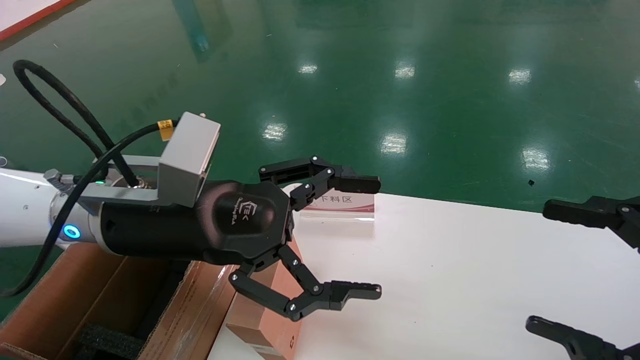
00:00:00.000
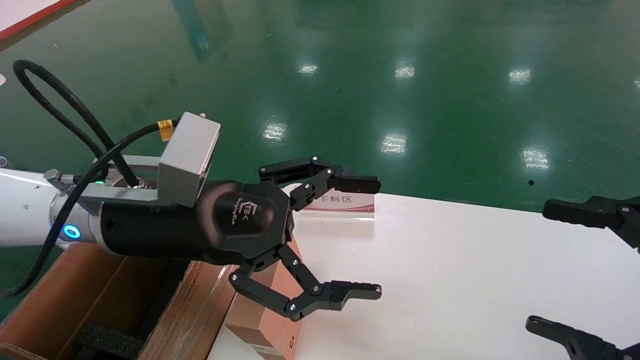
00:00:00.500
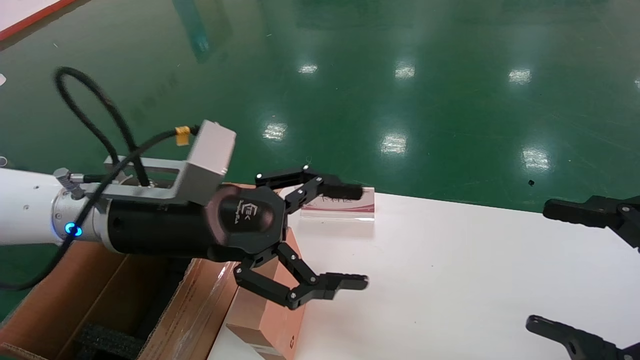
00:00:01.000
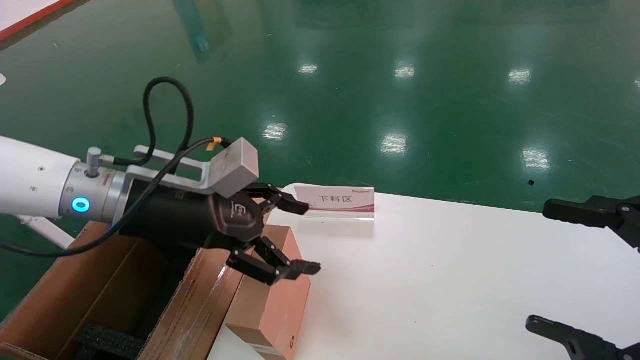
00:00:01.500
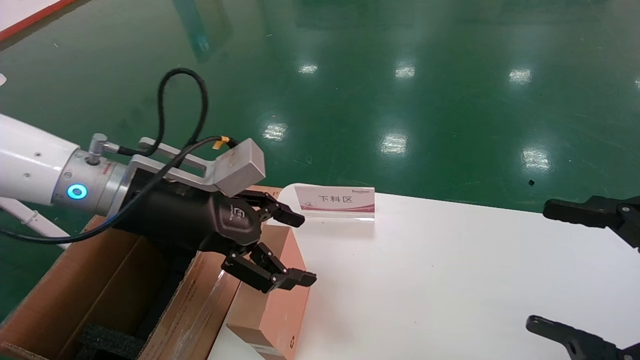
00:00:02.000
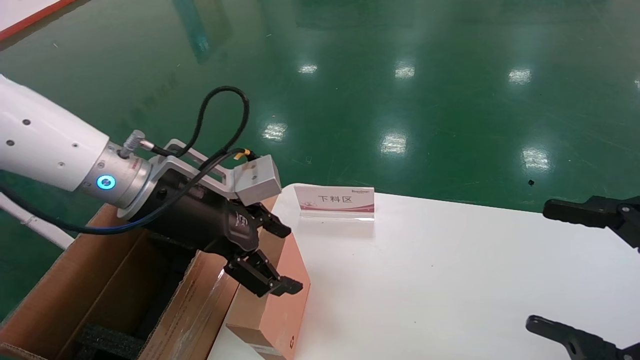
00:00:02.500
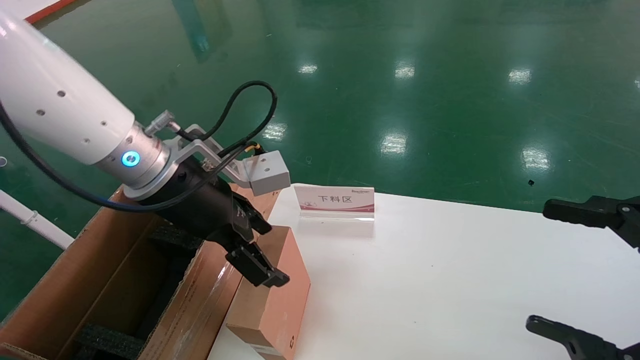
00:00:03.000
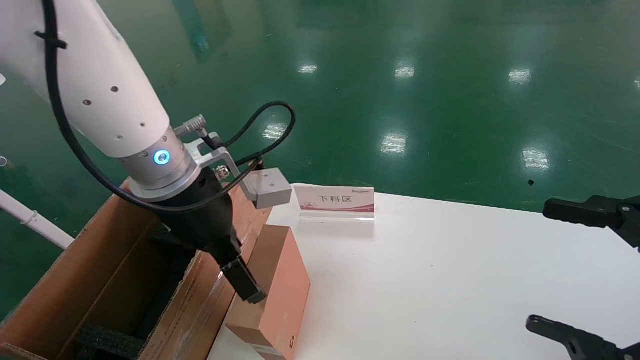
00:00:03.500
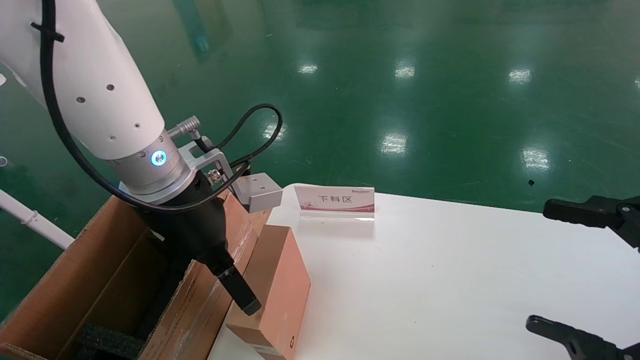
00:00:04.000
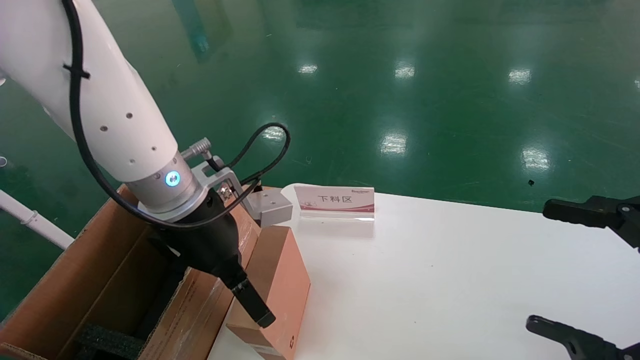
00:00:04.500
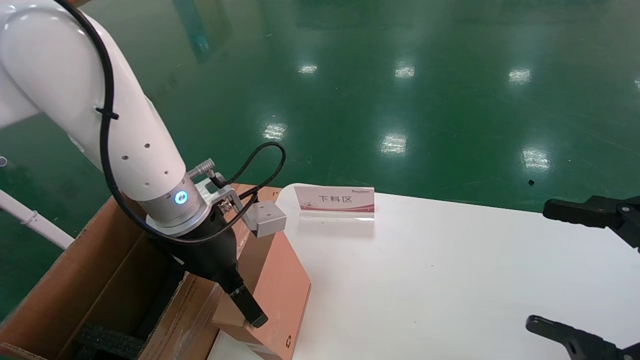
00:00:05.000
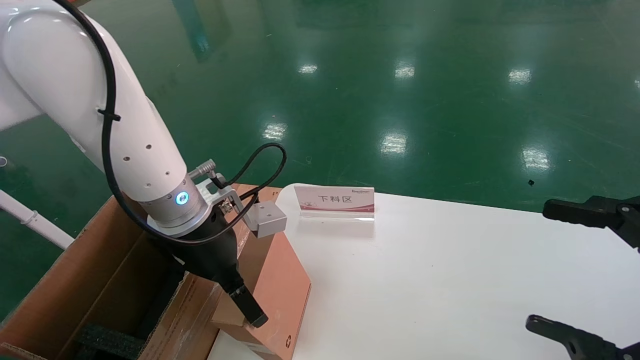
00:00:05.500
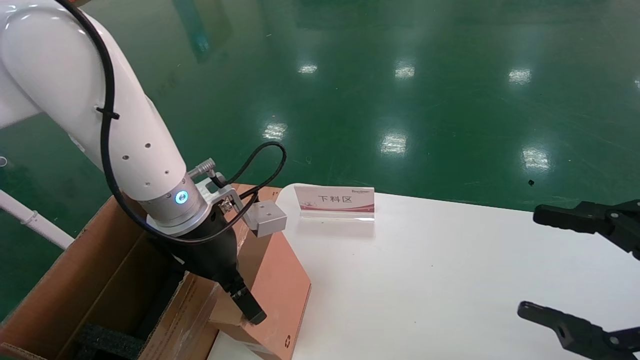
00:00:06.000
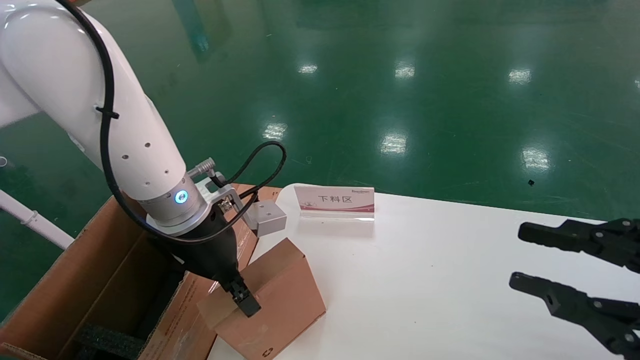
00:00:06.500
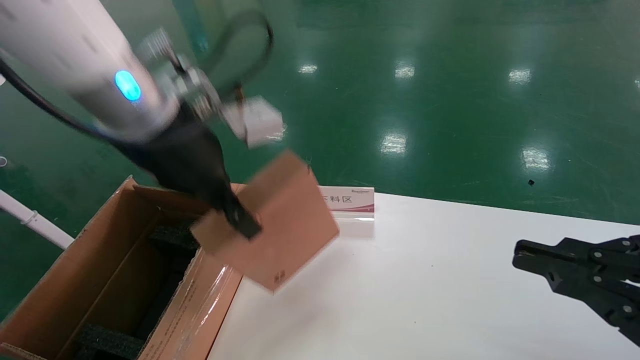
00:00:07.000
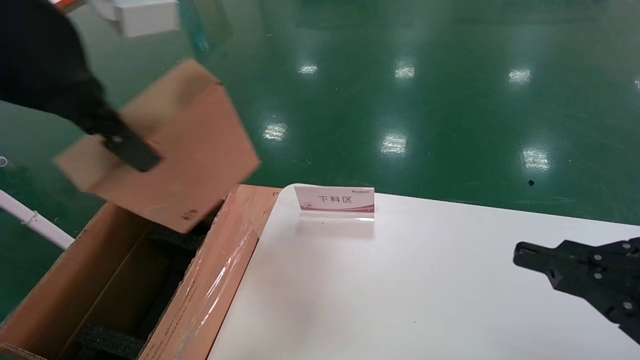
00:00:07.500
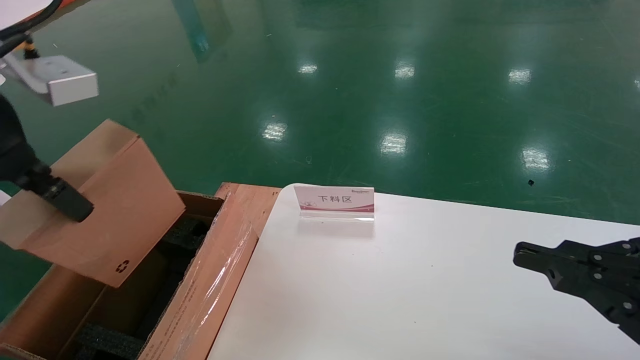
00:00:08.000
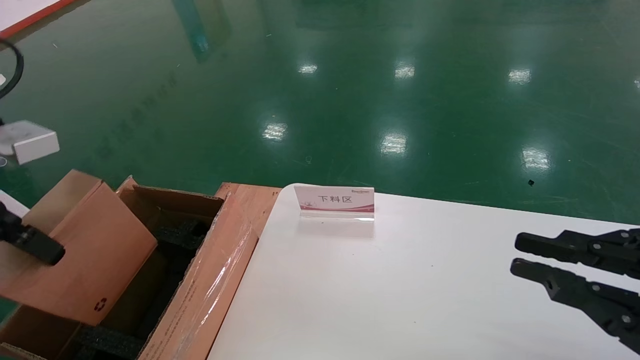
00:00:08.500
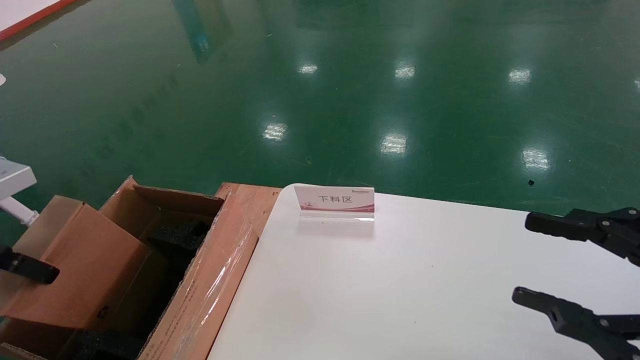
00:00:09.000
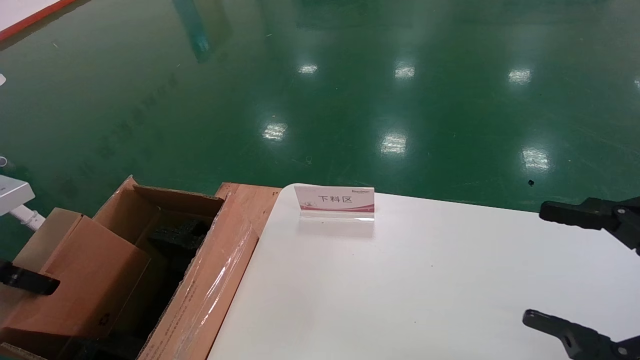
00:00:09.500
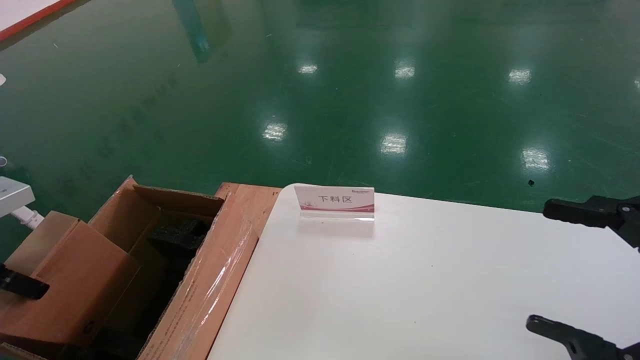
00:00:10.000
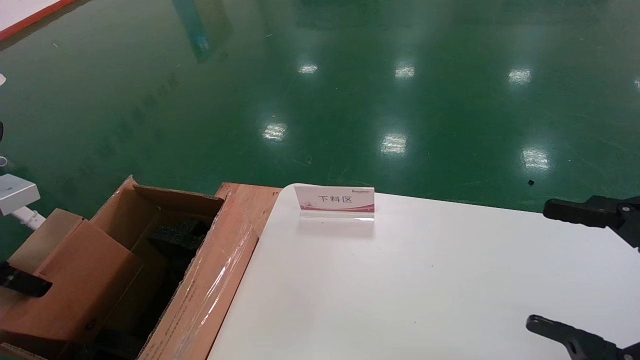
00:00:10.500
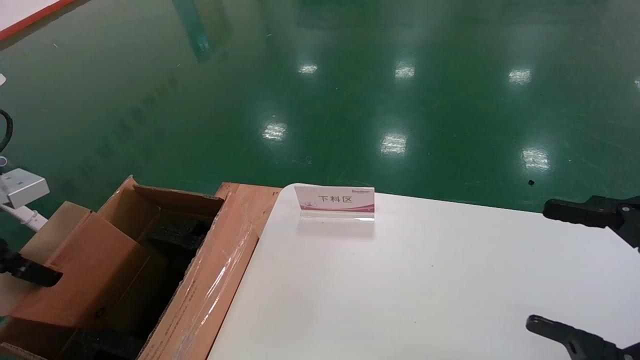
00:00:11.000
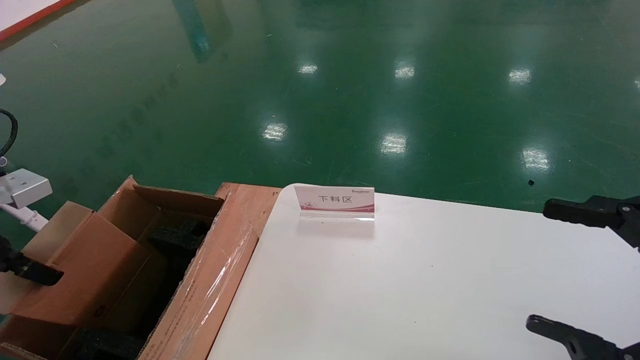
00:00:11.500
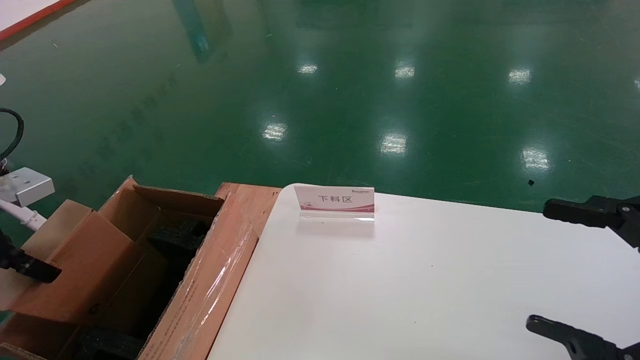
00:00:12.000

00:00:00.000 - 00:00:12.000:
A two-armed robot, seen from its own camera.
Task of the whole recording: pick up the small cardboard box and load it into the large cardboard box.
Step, 00:00:01.500 - 00:00:06.000: Pick up the mouse and power cord box.
00:00:02.000 - 00:00:04.000: The left gripper goes some 5 cm to the right.
00:00:04.000 - 00:00:06.000: The left gripper shifts by approximately 5 cm.
00:00:06.000 - 00:00:08.000: The left gripper travels upward, backward and to the left by some 25 cm, and closes, while the right gripper closes.
00:00:08.000 - 00:00:10.000: The right gripper opens. The left gripper goes approximately 20 cm to the left and downward.
00:00:10.000 - 00:00:12.000: The grippers stay close to where they were, moving slightly.

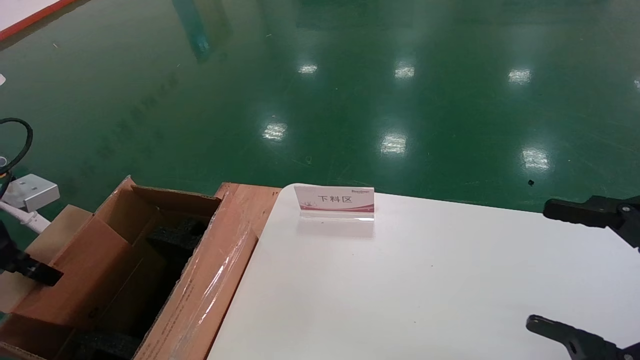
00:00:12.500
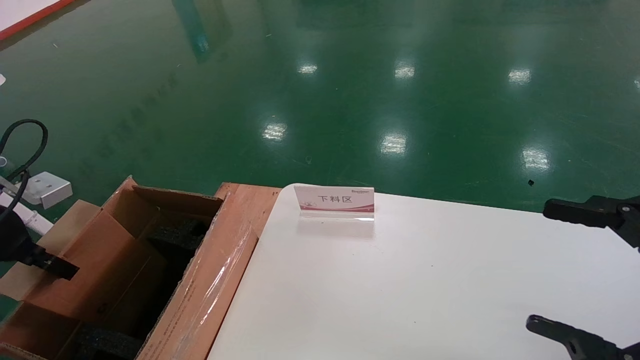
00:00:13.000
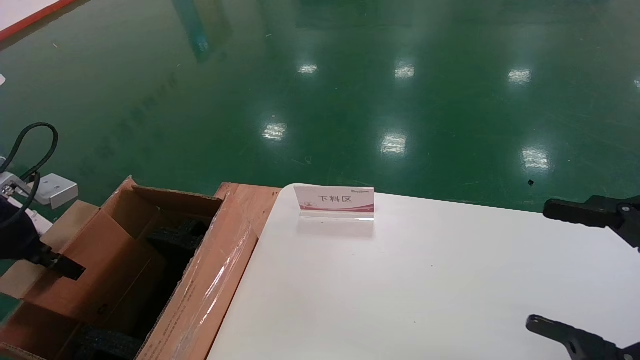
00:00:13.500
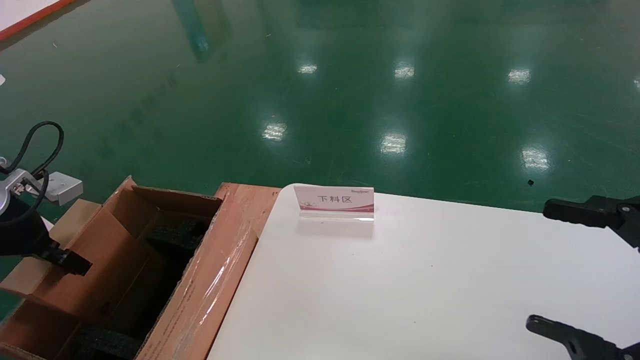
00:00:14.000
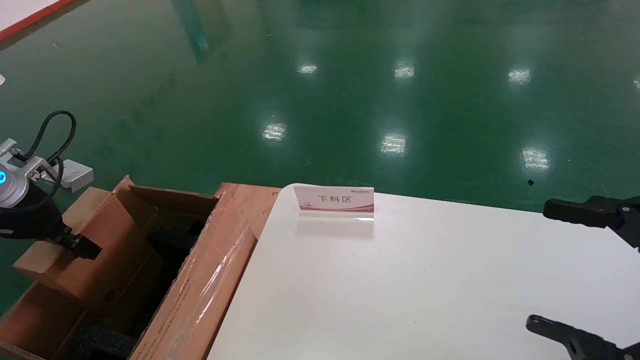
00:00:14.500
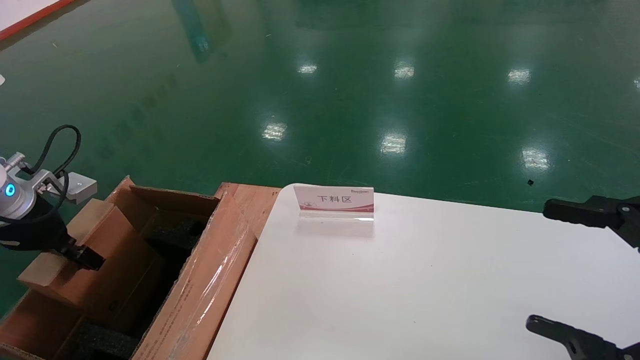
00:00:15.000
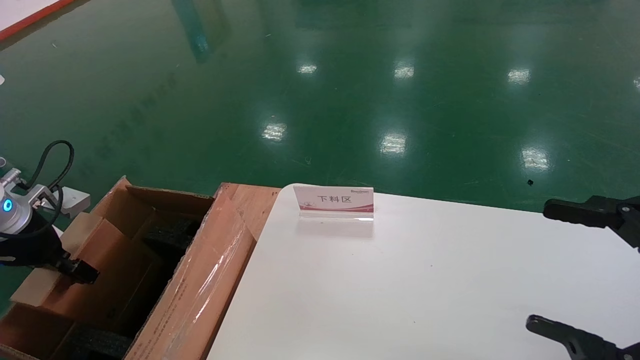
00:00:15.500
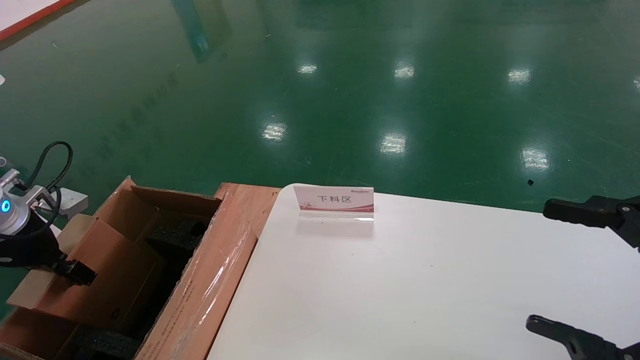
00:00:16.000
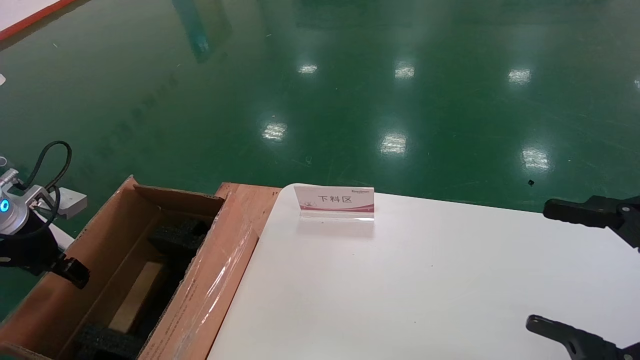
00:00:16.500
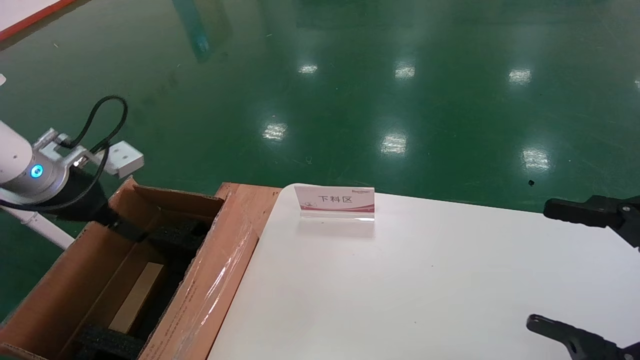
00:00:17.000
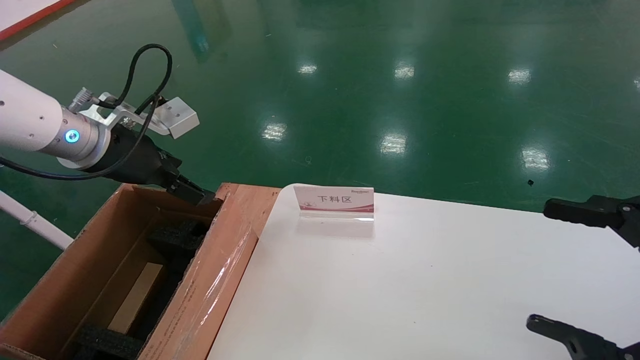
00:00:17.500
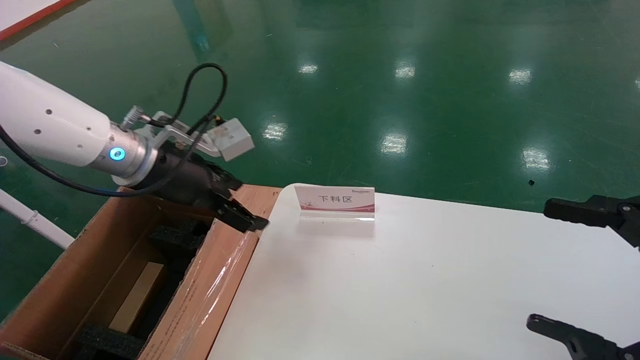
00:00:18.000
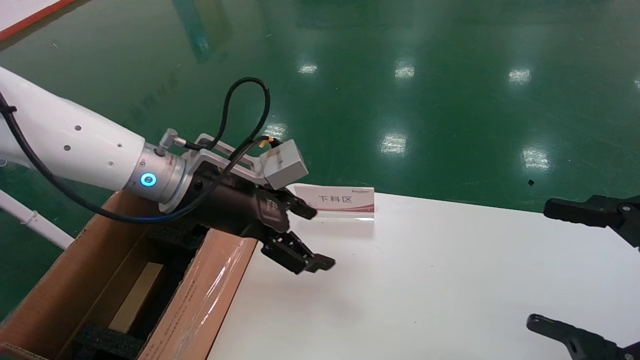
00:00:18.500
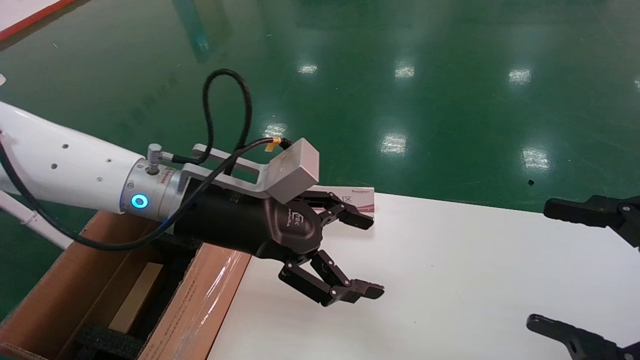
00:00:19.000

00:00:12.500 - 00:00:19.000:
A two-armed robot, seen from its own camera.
Task of the whole recording: pick up the small cardboard box and load it into the large cardboard box.
Step, 00:00:12.500 - 00:00:17.000: Place the mouse and power cord box into the case.
00:00:12.500 - 00:00:14.500: The left gripper is displaced forward by about 5 cm.
00:00:14.500 - 00:00:17.000: The left gripper shifts some 5 cm to the right, and opens.
00:00:17.000 - 00:00:19.000: The left gripper travels to the right by roughly 20 cm.

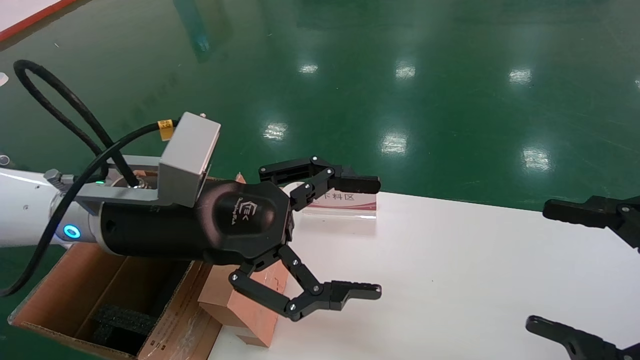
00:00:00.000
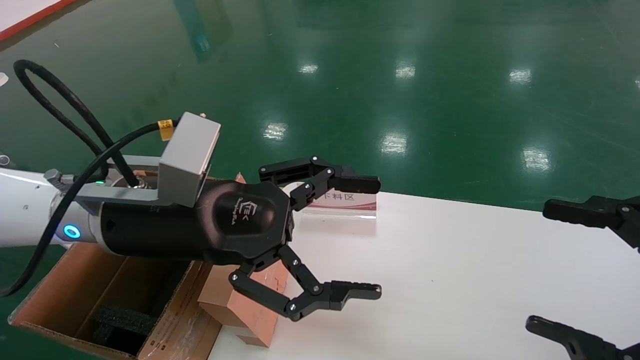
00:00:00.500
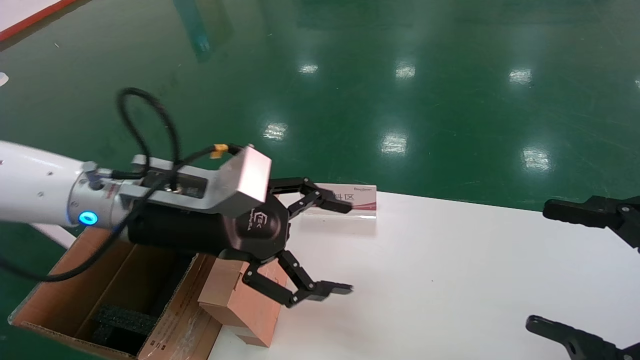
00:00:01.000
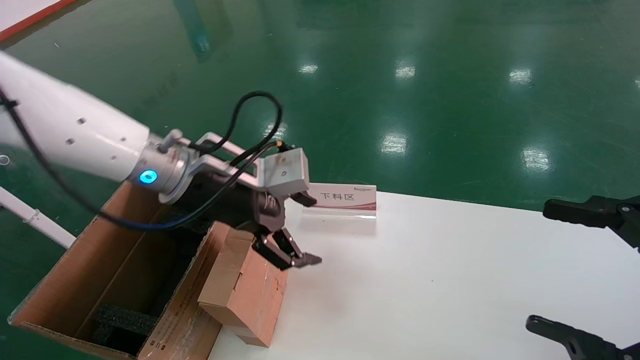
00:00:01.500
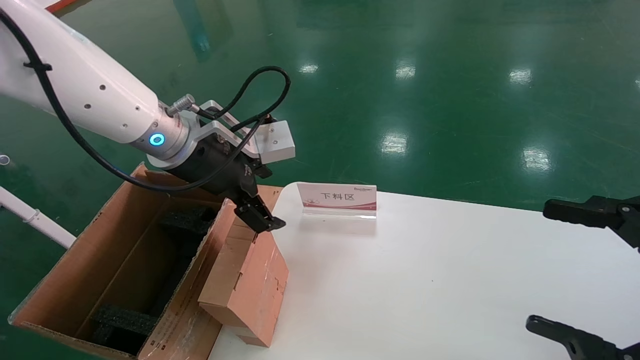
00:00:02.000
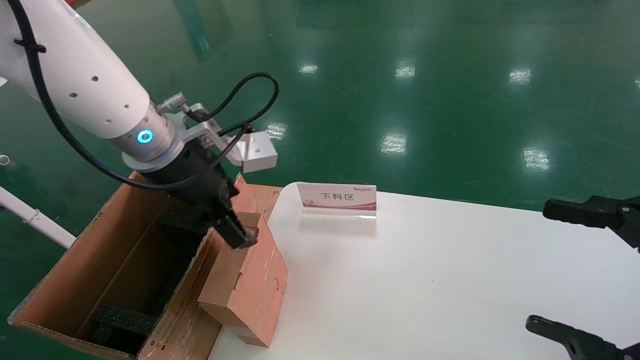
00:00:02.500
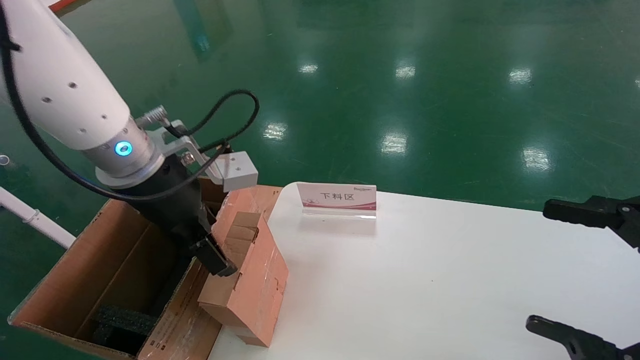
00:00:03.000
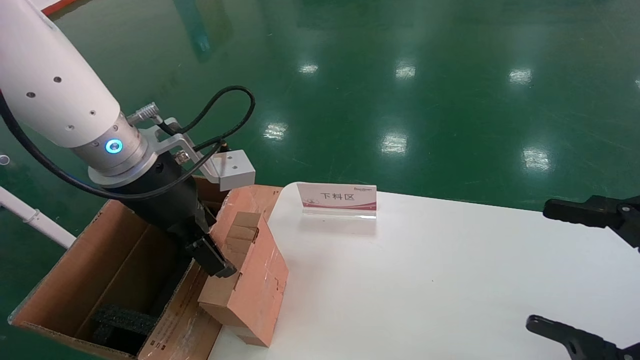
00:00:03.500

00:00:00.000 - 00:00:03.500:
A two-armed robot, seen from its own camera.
Task of the whole recording: pick up the small cardboard box and load it into the large cardboard box.
00:00:00.000 - 00:00:02.000: The left gripper moves forward, about 10 cm.
00:00:02.000 - 00:00:03.500: The left gripper changes place by roughly 5 cm.
